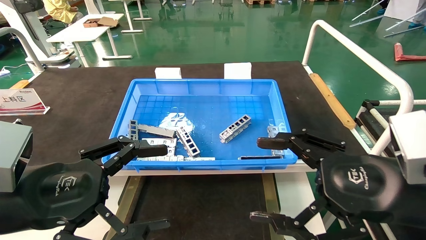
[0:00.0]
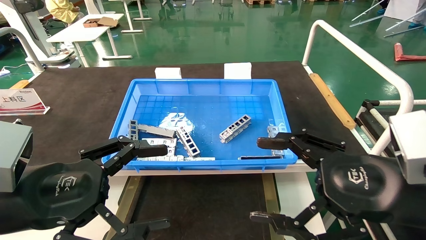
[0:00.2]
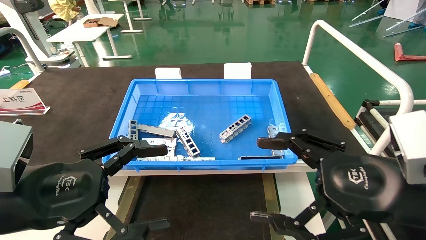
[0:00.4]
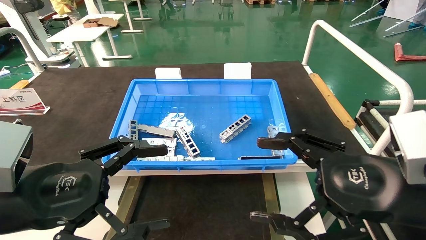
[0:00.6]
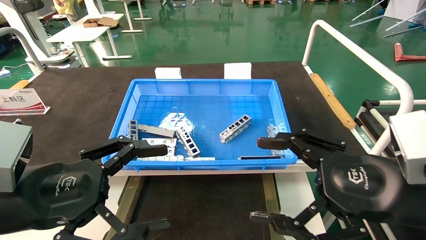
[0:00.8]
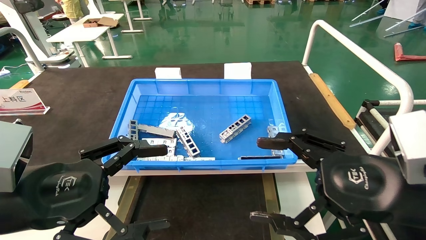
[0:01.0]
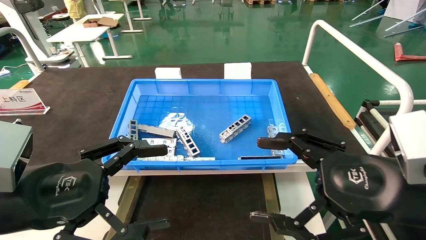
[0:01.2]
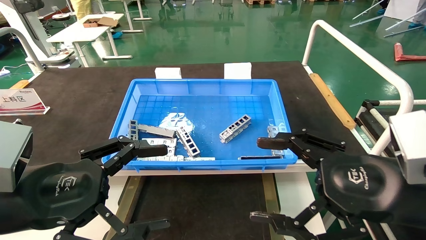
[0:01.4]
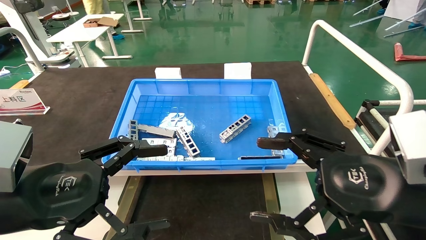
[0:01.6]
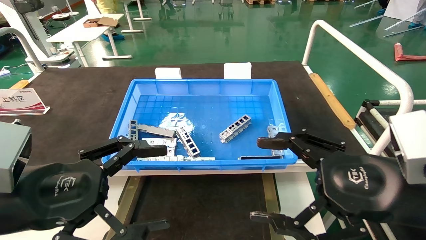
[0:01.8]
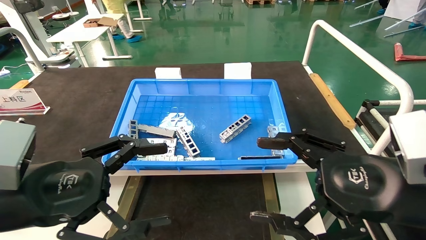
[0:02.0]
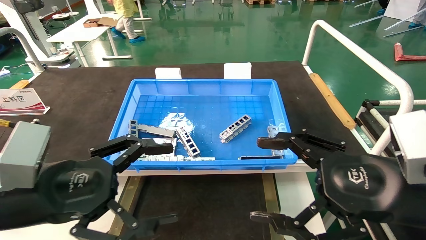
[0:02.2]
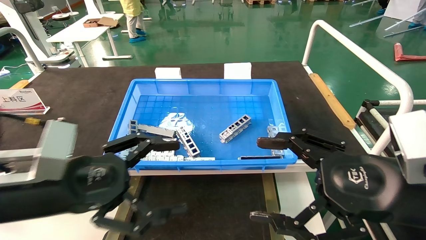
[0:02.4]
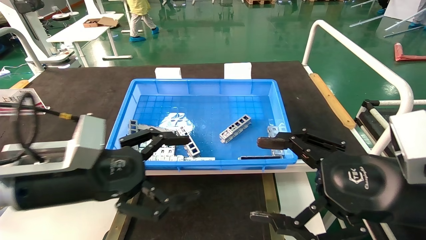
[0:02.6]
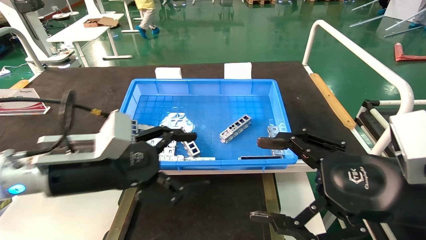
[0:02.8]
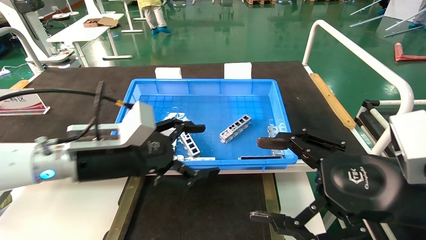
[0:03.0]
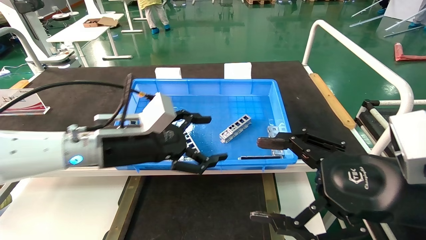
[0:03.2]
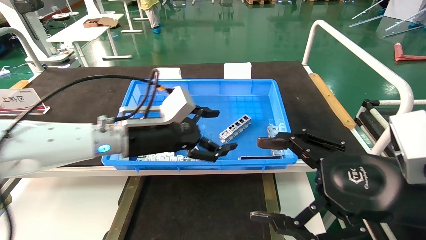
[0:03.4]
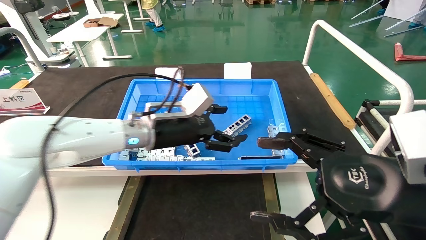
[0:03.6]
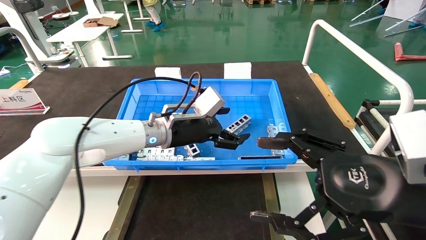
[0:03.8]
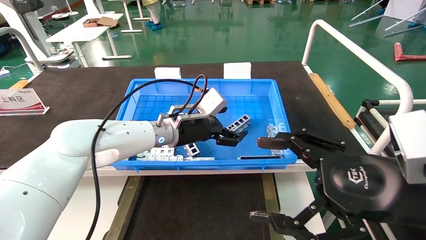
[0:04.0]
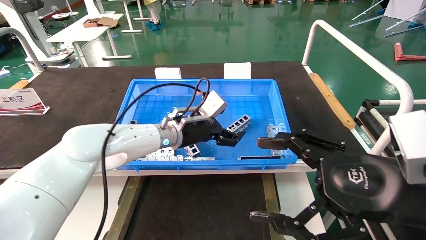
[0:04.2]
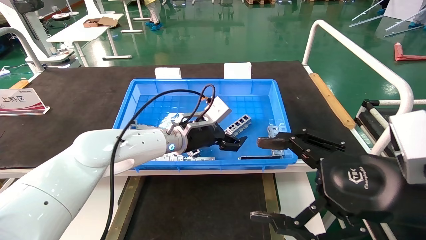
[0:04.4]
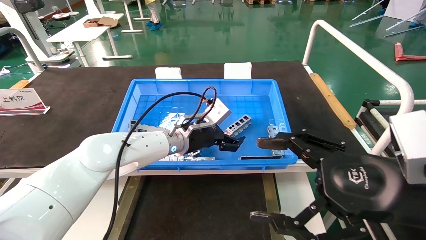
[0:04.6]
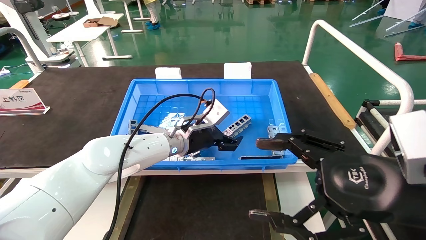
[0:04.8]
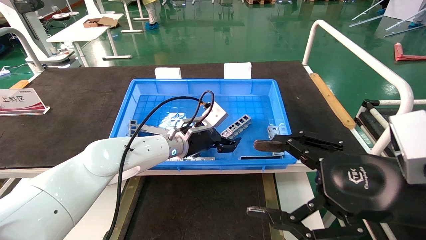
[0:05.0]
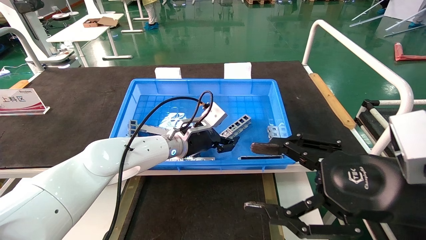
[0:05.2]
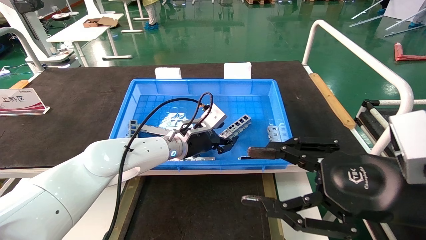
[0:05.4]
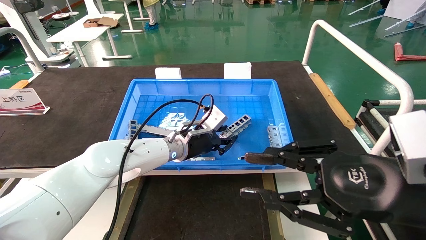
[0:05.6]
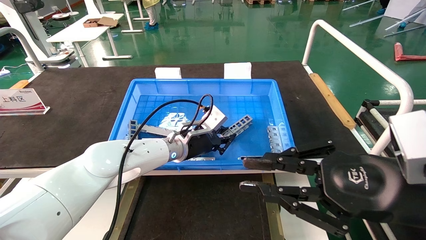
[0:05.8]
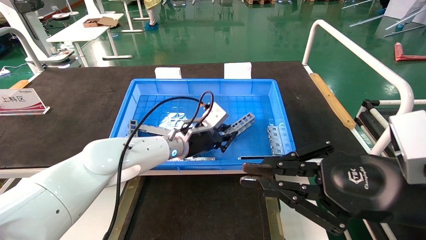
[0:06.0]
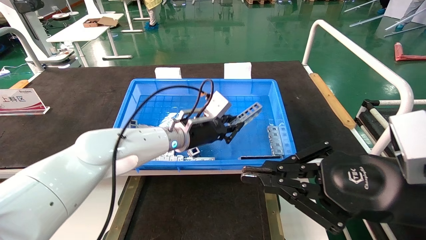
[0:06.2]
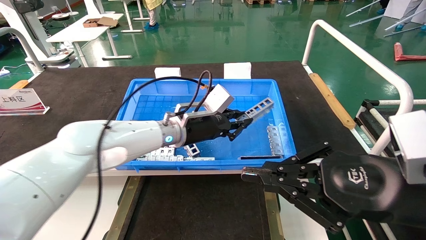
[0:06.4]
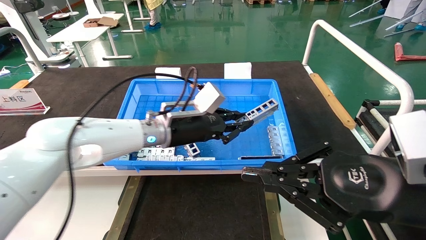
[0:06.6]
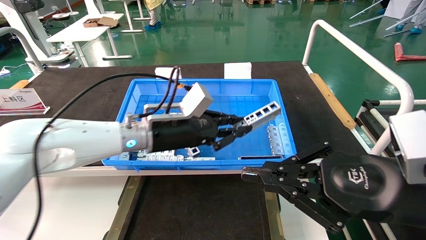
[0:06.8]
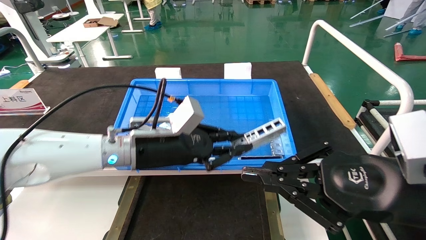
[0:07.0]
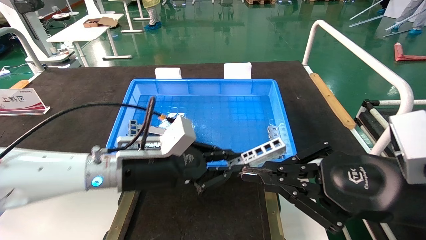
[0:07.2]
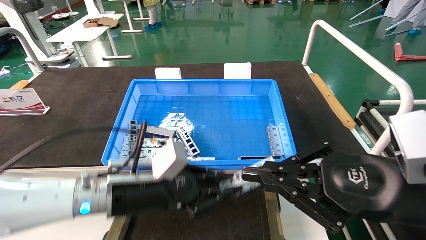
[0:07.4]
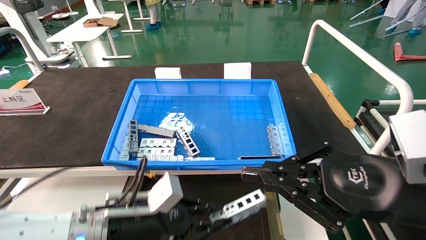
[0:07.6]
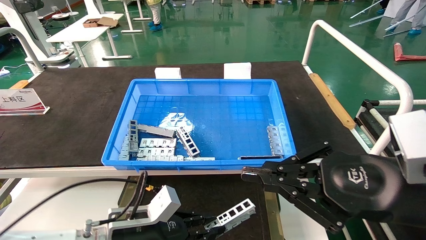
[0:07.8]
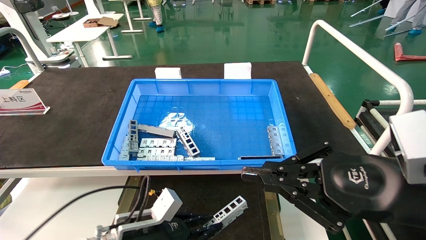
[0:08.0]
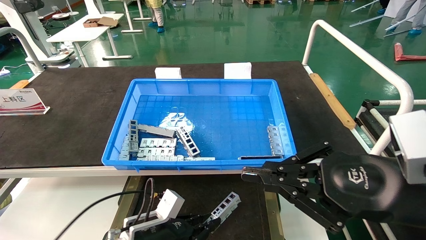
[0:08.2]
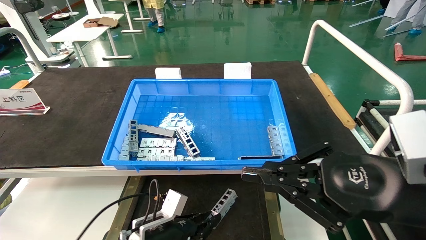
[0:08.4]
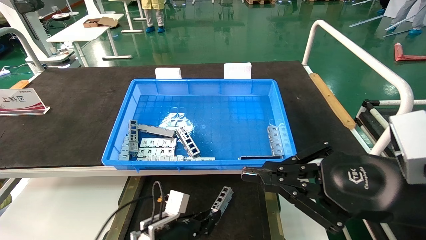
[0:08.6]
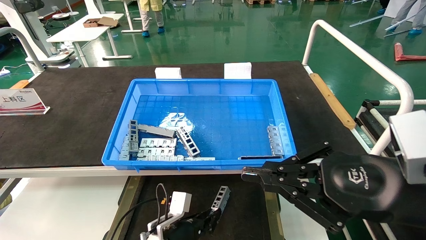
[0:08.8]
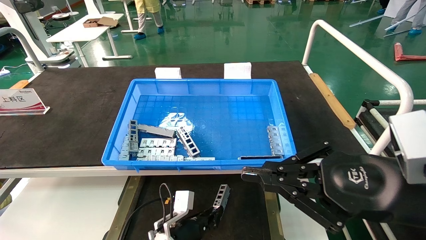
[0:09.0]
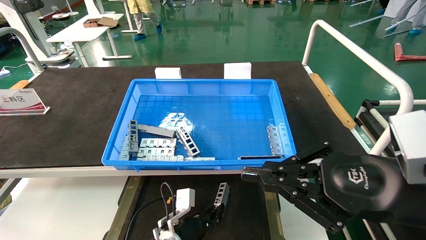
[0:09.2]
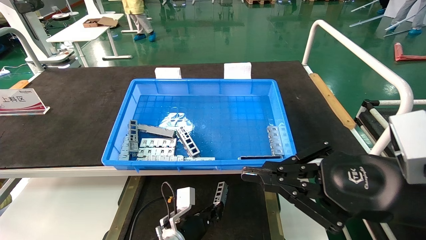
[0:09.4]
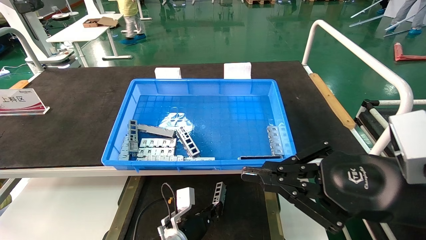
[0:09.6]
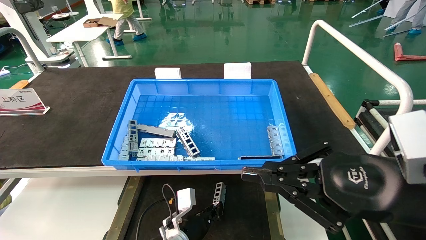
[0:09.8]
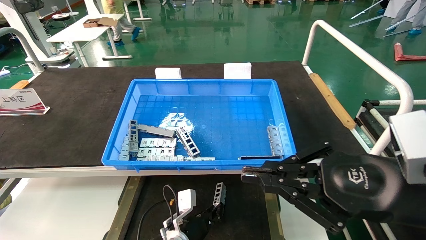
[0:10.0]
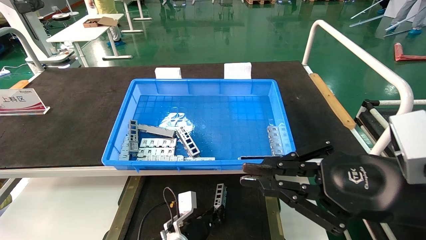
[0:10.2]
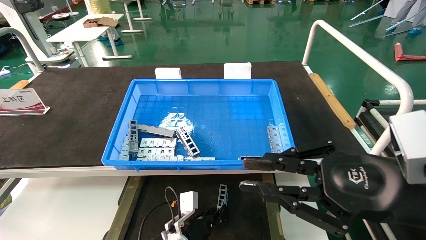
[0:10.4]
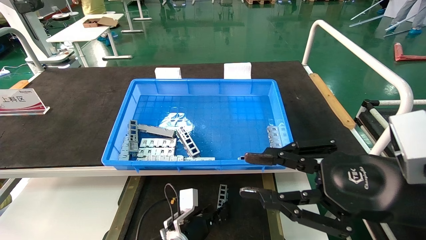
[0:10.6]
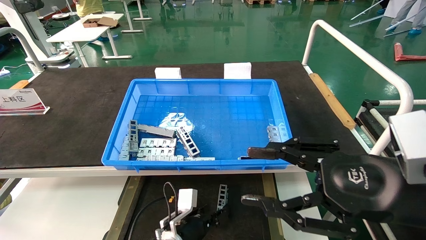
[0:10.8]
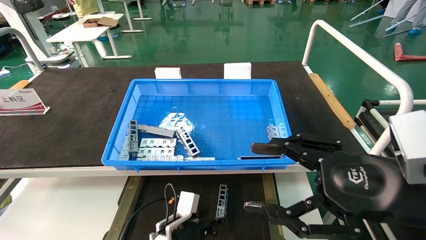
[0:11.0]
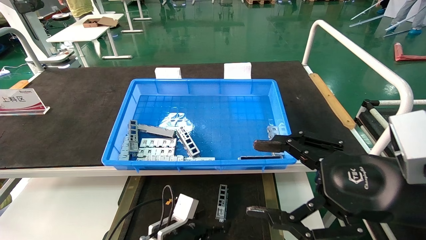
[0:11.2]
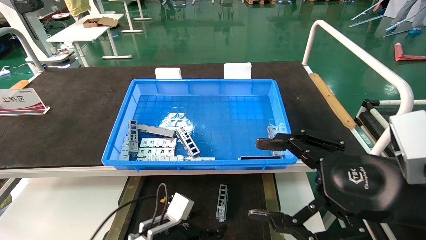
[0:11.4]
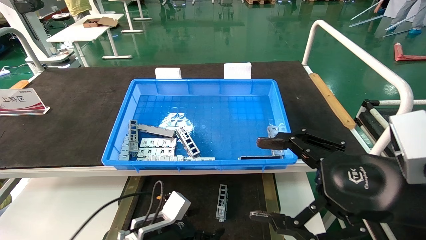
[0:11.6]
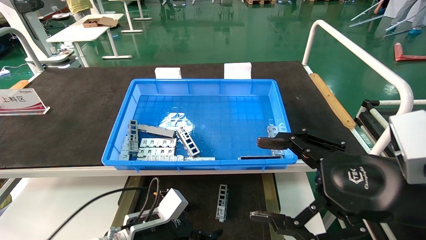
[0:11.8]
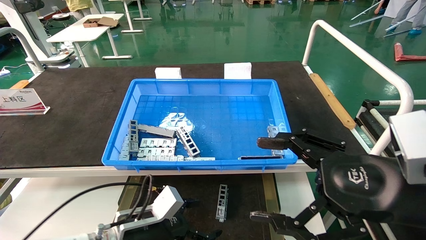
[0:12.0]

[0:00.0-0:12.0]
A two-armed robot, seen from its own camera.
Task of the whole recording: Grasp the part with one hand and place it on the black container.
Step, 0:02.0 to 0:06.0: Pick up the front USB bracket from the feeding area.
Step, 0:06.2 to 0:10.2: Place the front USB bracket into the box.
0:00.0 to 0:01.6: Both grippers stay about where they are.
0:01.6 to 0:03.0: The left gripper heads forward and to the right, covering roughly 15 cm.
0:03.0 to 0:04.4: The left gripper heads forward and to the right, covering about 20 cm.
0:04.4 to 0:06.0: The left gripper closes up, while the right gripper closes its fingers.
0:06.0 to 0:07.6: The left gripper travels backward, to the left and downward by about 20 cm.
0:07.6 to 0:09.0: The left gripper is displaced downward, forward and to the right by some 20 cm.
0:09.0 to 0:10.4: The grippers make only small movements.
0:10.4 to 0:12.0: The left gripper heads to the left, upward and backward, covering about 15 cm, and opens its fingers, while the right gripper opens its fingers.
